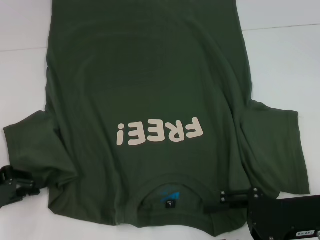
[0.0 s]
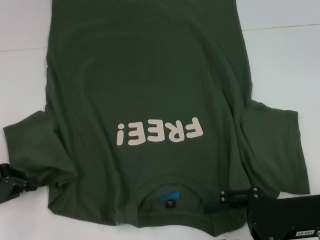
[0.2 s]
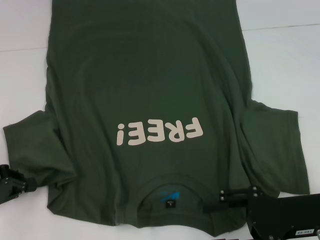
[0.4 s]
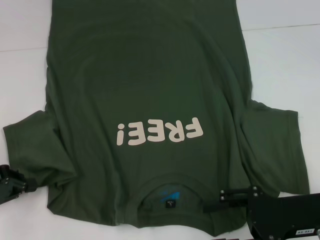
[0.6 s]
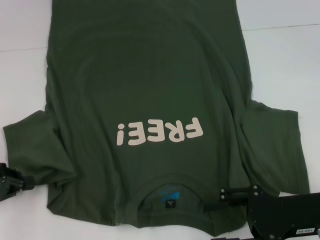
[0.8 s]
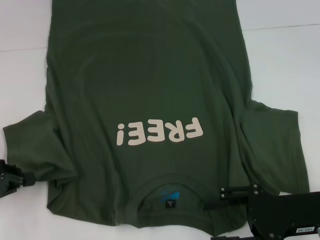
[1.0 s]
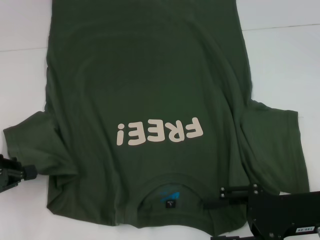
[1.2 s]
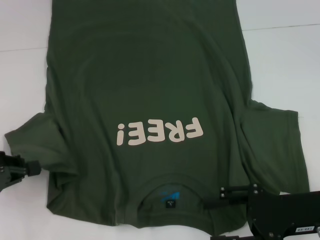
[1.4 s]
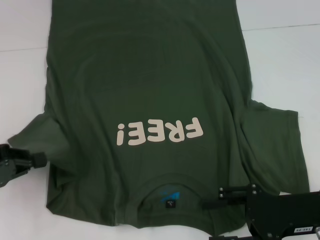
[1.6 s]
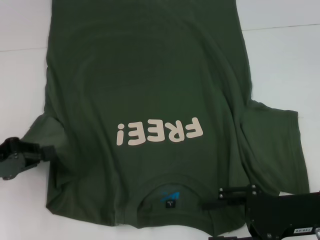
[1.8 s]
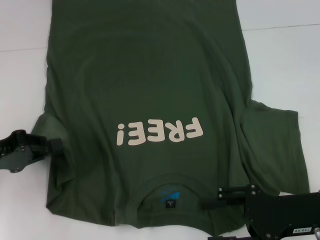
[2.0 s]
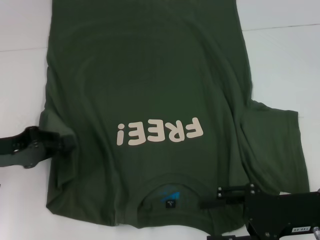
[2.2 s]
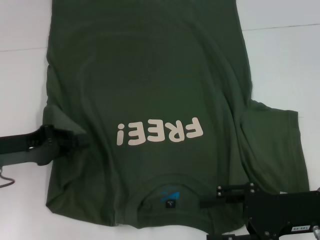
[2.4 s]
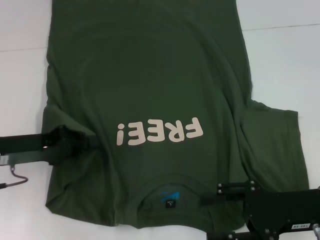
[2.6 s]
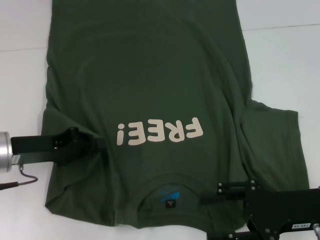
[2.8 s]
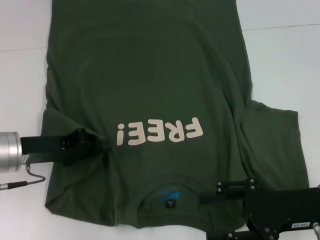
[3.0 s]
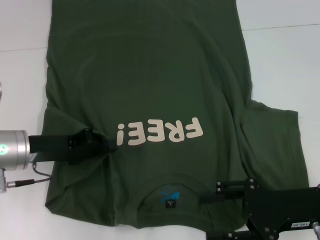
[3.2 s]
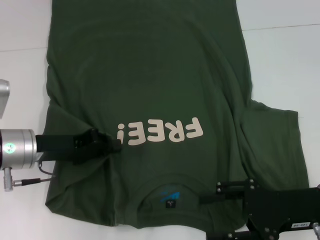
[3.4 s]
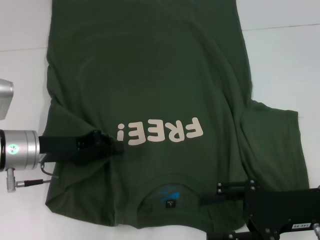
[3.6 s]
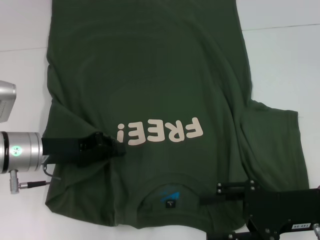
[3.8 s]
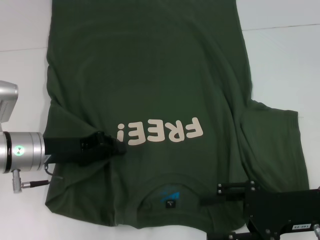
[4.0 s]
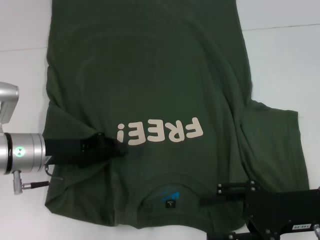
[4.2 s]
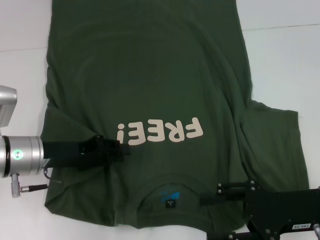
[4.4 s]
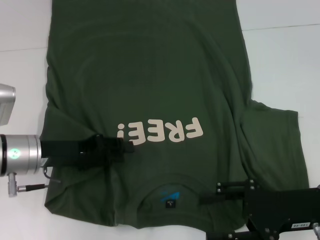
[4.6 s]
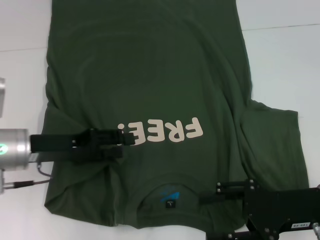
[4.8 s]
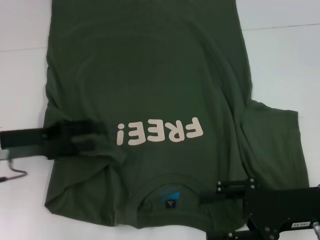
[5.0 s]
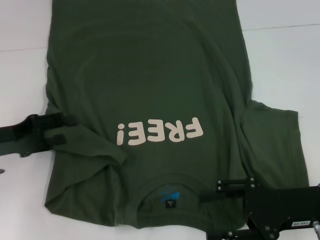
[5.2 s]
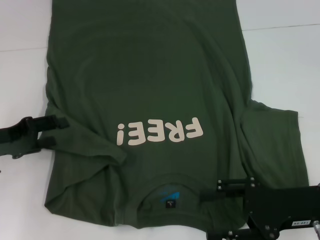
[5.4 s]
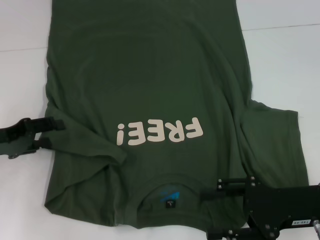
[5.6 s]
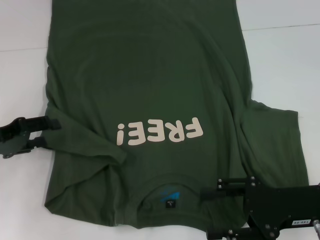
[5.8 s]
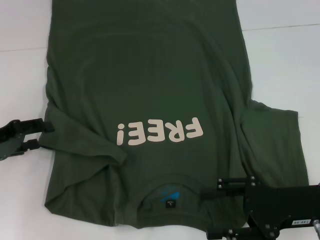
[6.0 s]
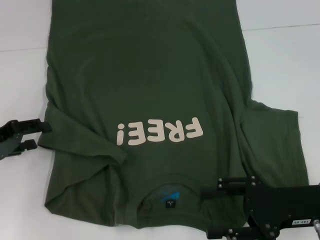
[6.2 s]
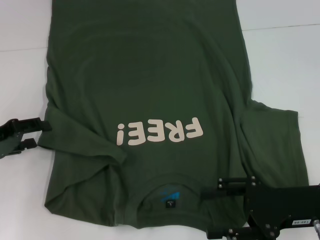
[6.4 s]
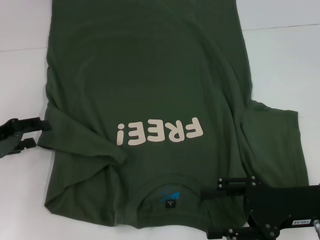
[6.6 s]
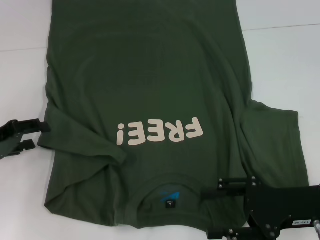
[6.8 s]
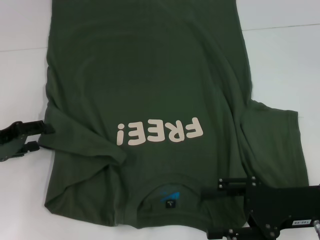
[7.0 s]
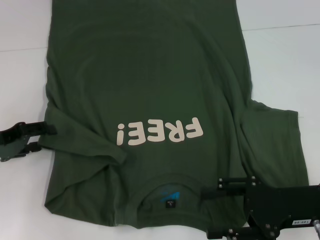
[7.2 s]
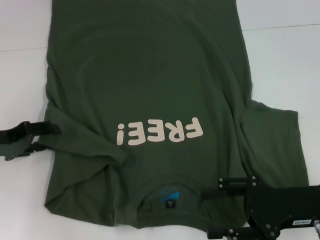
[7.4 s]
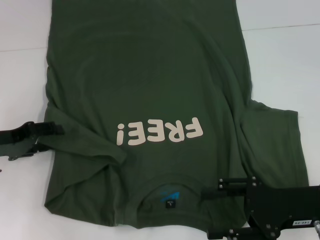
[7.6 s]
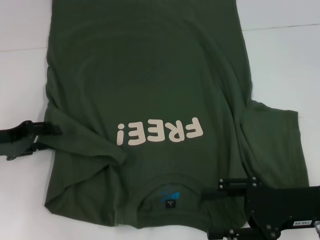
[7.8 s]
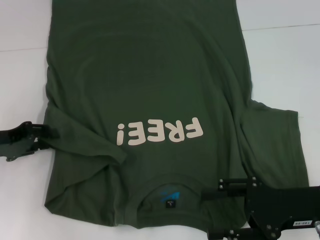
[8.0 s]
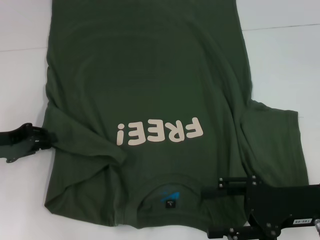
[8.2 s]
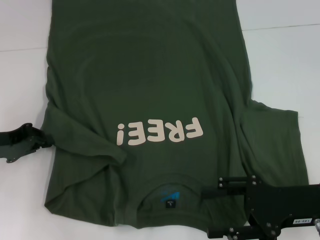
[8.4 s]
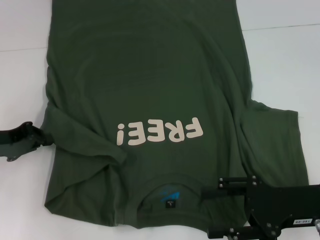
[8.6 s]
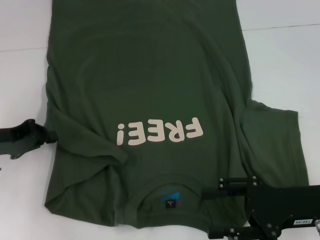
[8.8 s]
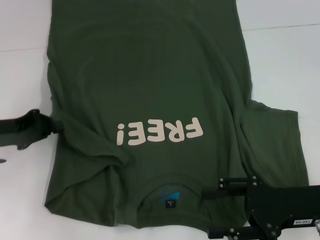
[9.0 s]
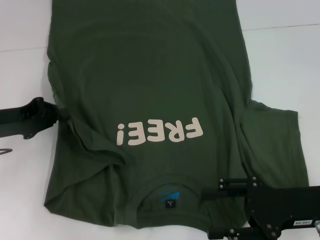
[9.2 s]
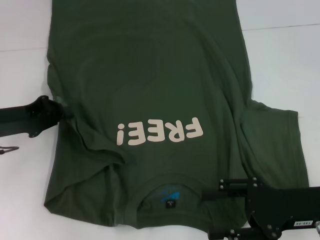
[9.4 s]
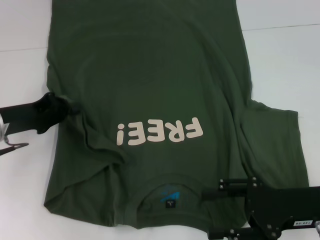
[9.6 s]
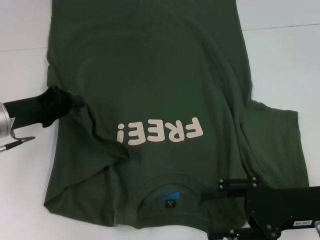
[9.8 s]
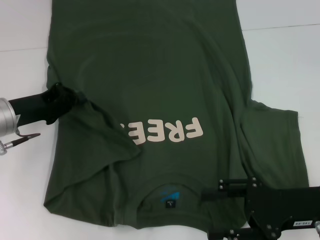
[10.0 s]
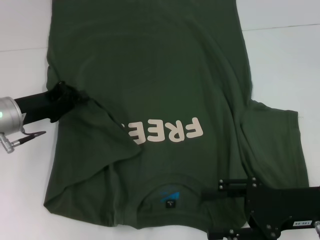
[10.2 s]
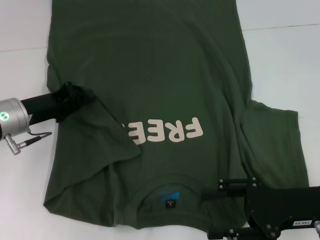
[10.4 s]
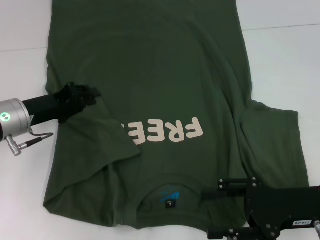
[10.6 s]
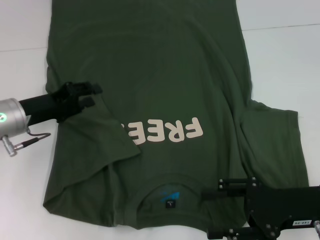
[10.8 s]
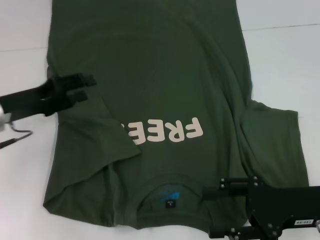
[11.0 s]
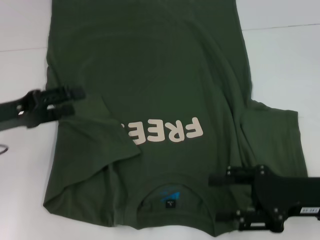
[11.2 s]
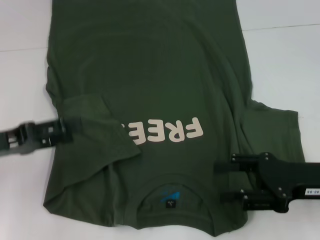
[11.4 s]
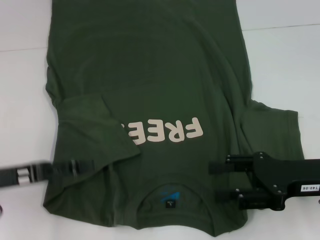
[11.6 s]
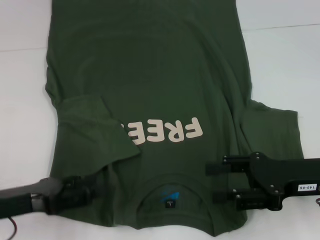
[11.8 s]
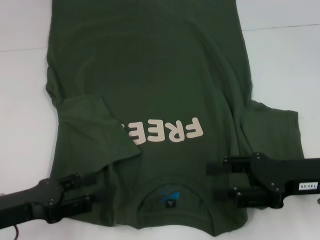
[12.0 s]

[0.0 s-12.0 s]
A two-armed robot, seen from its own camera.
Step, 0.0 to 10.8 s: Fold the bottom left sleeve with your left hand.
0.0 to 1.6 s: The left gripper closes its fingers.
1.6 to 3.0 s: The left gripper heads to the right, covering roughly 10 cm.
3.0 to 4.4 s: The grippers stay close to where they were, moving slightly.
4.4 to 6.0 s: The left gripper moves to the left, roughly 10 cm, and opens up.
6.0 to 7.6 s: The grippers move only a little.
7.6 to 9.0 s: The left gripper closes.
9.0 to 10.4 s: The left gripper shifts some 5 cm to the right.
10.4 to 12.0 s: The left gripper shifts about 15 cm backward, and opens up.

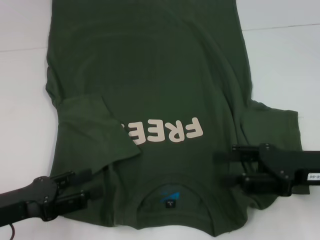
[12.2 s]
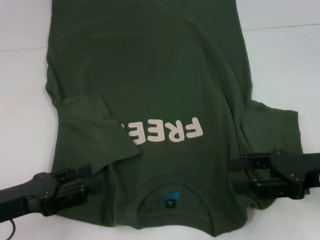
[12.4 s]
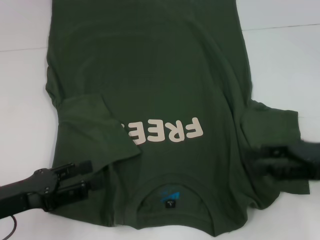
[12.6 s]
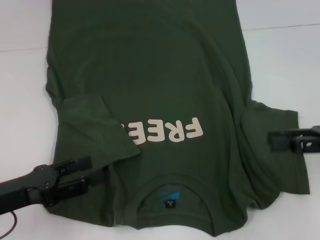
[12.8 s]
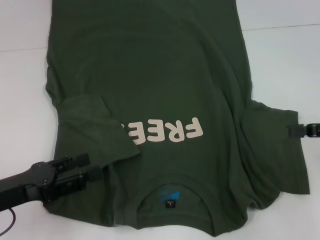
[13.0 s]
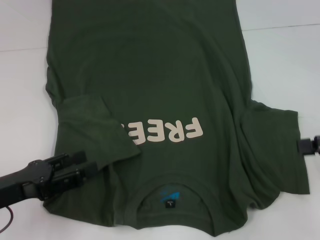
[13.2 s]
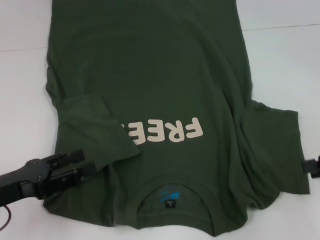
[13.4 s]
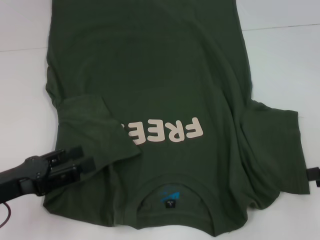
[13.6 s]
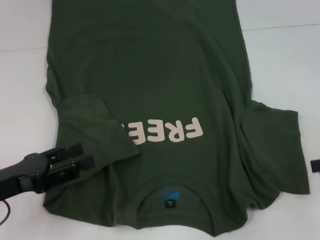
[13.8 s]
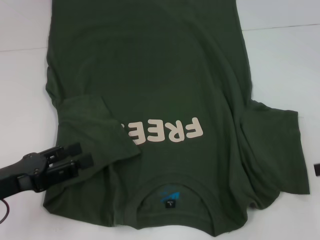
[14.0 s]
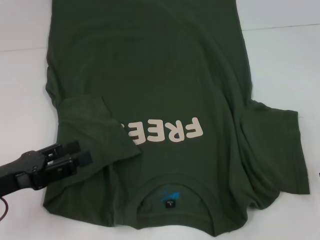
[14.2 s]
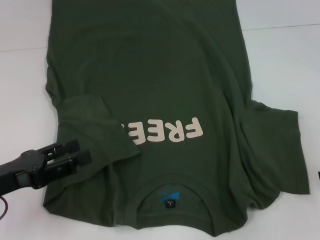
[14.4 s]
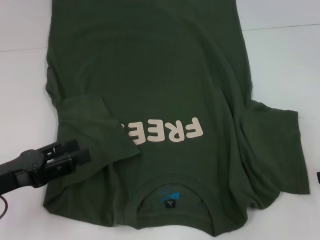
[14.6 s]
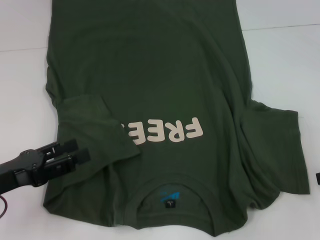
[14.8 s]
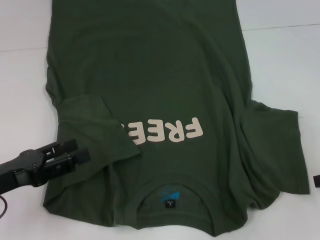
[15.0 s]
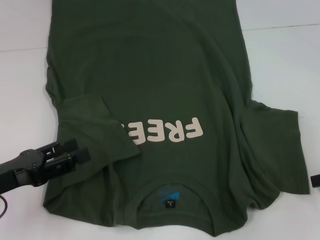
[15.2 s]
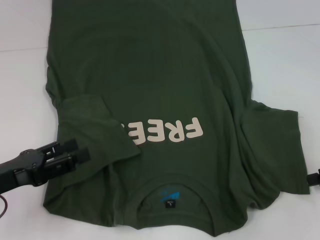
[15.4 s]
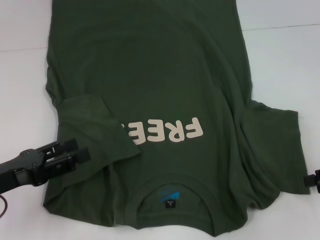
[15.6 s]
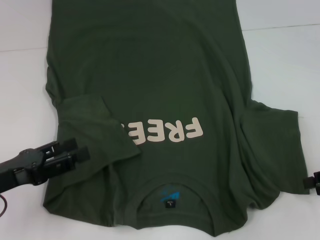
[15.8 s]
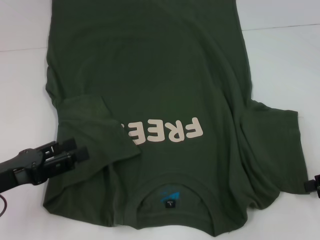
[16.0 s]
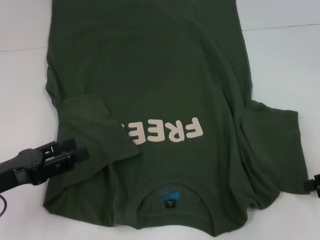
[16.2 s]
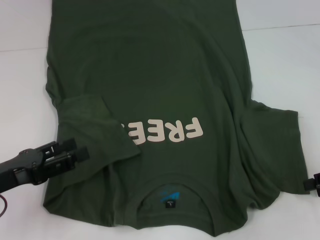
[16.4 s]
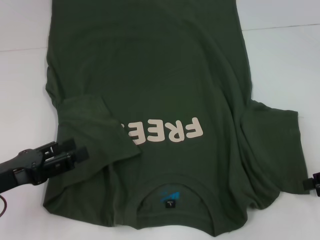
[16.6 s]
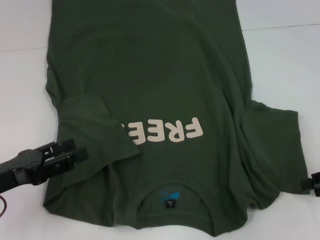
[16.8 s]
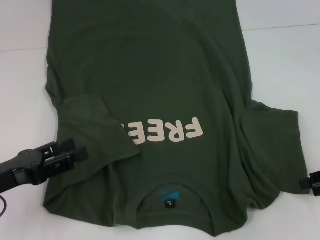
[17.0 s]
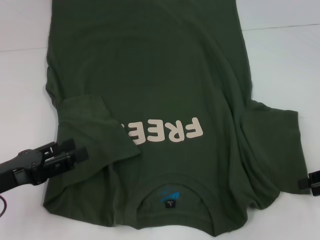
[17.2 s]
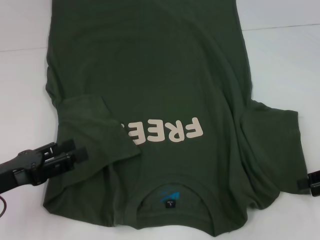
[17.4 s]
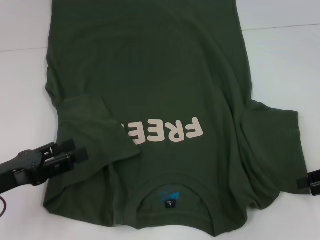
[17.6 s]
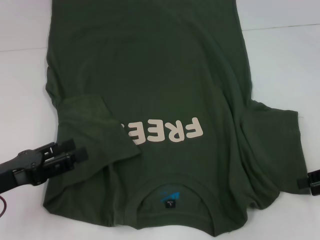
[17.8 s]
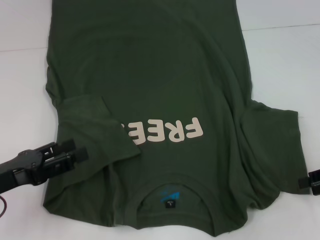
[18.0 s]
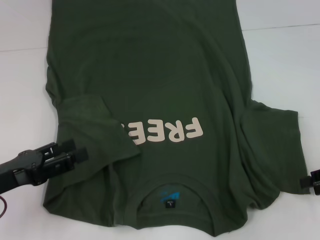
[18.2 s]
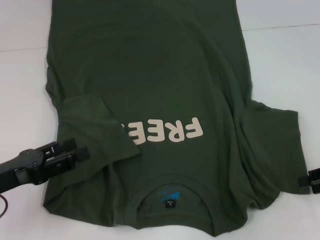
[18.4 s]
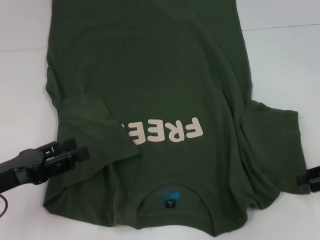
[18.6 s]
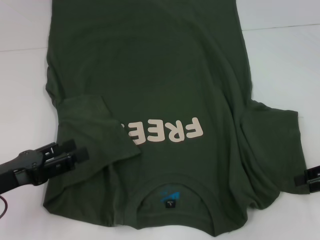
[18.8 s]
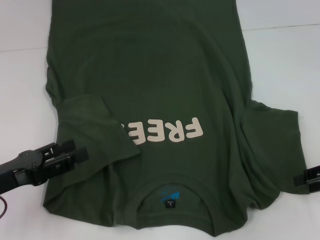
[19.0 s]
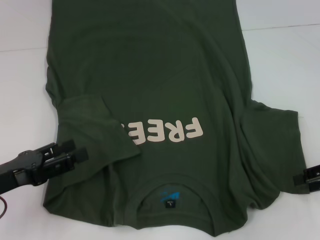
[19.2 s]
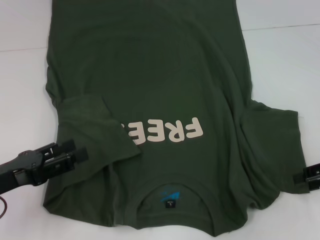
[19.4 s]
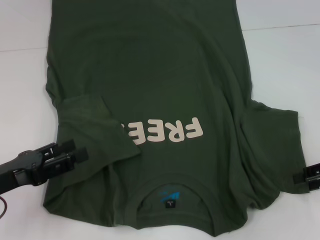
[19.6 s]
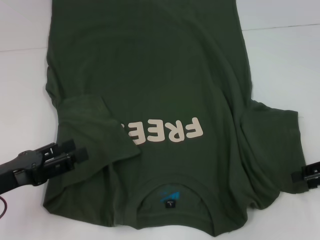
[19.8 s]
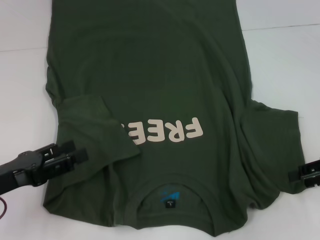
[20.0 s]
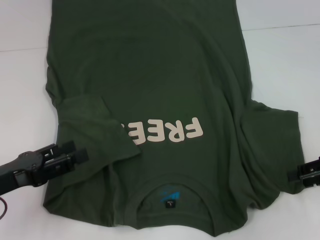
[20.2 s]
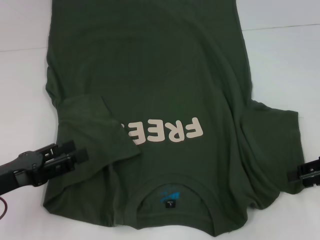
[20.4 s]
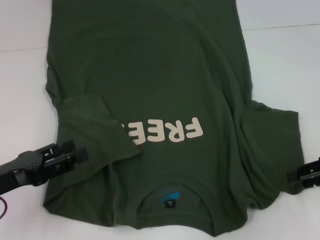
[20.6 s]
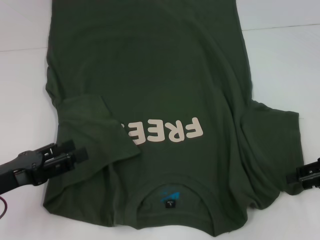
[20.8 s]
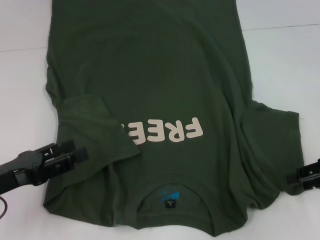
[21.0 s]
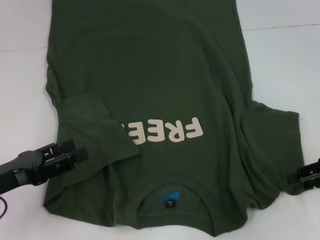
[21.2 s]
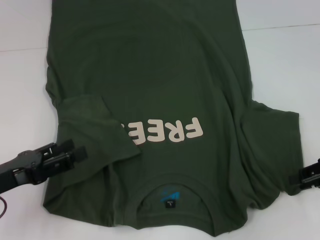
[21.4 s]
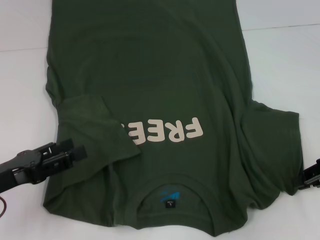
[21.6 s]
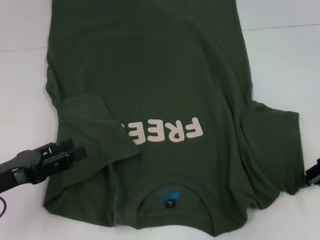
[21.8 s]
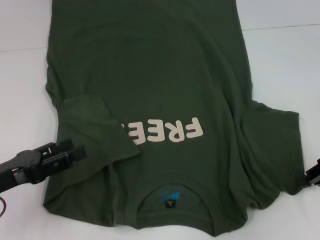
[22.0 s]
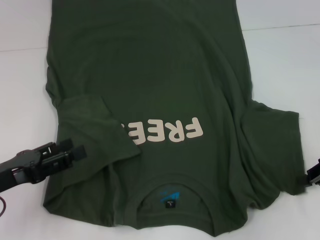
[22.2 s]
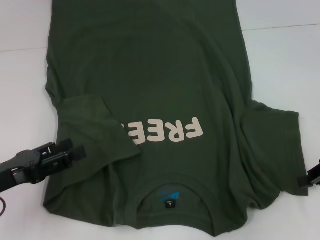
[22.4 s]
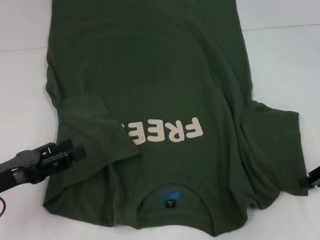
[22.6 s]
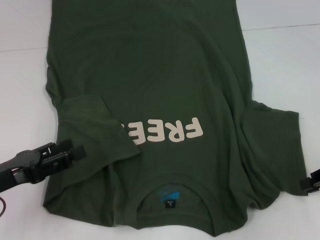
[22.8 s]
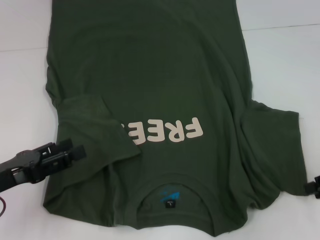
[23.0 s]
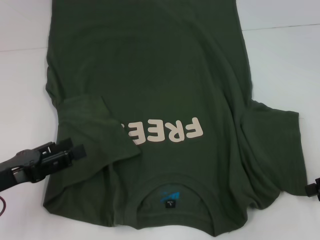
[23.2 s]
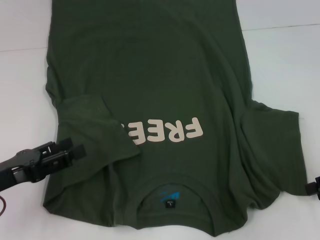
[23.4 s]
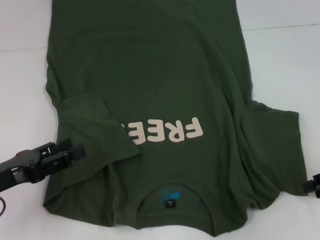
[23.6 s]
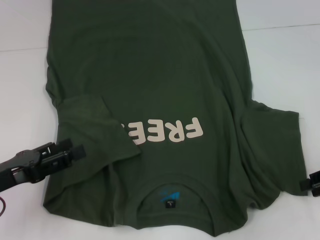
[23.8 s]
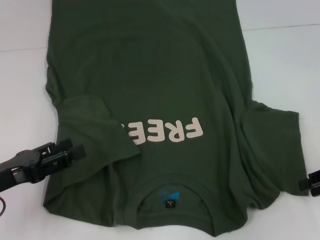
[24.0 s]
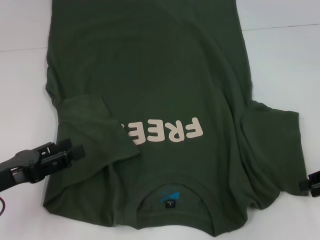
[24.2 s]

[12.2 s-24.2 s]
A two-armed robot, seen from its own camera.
12.2 to 13.8 s: The right gripper heads to the right, covering about 15 cm.
13.8 to 15.2 s: The grippers make only small movements.
16.6 to 18.2 s: Both grippers stay put.
18.2 to 19.8 s: The two grippers keep their place.
19.8 to 21.2 s: Both grippers stay put.
